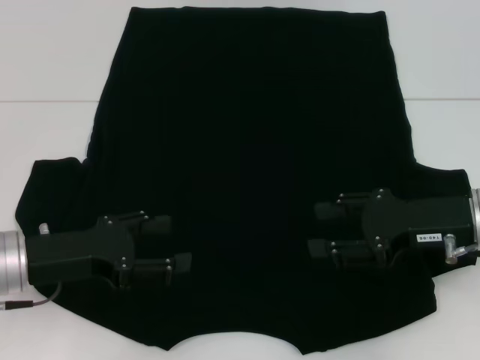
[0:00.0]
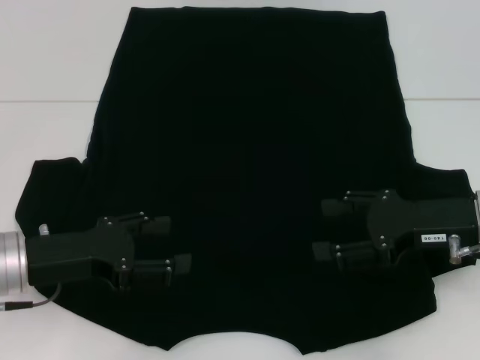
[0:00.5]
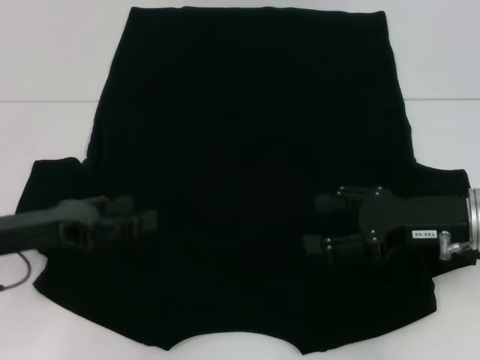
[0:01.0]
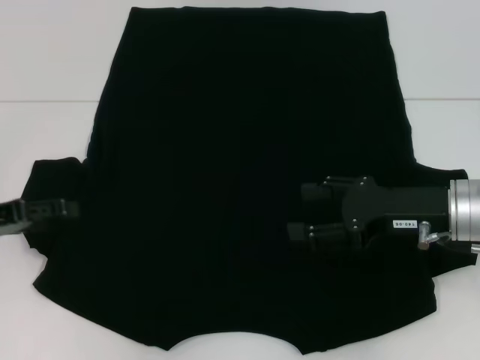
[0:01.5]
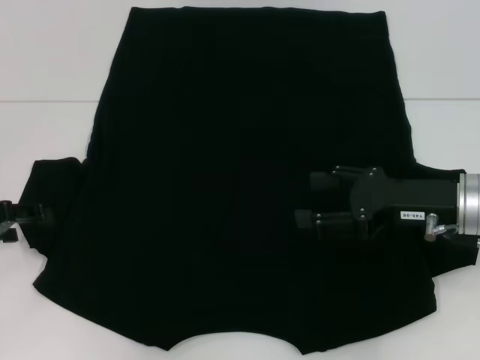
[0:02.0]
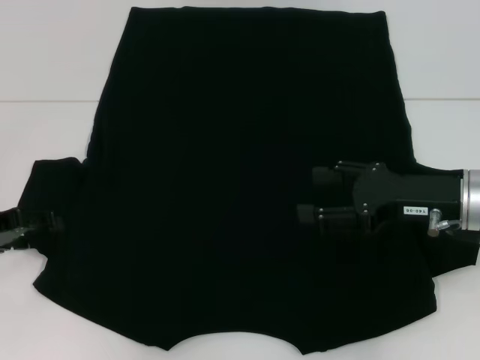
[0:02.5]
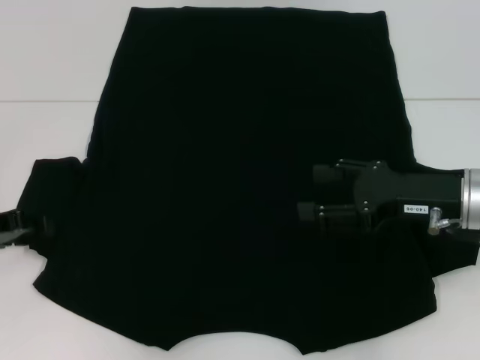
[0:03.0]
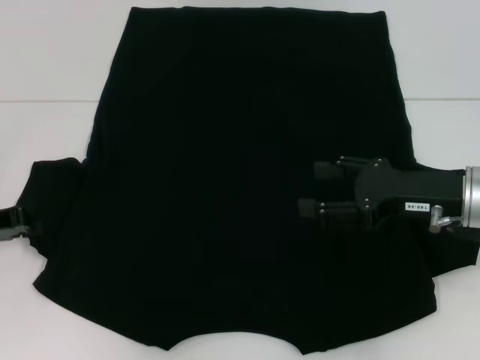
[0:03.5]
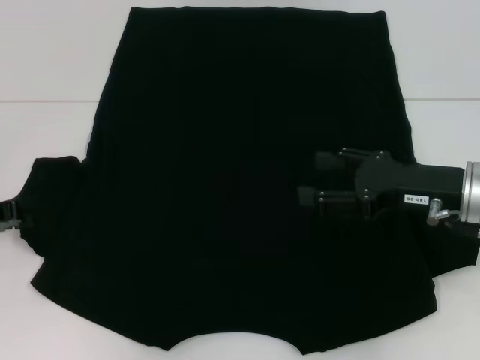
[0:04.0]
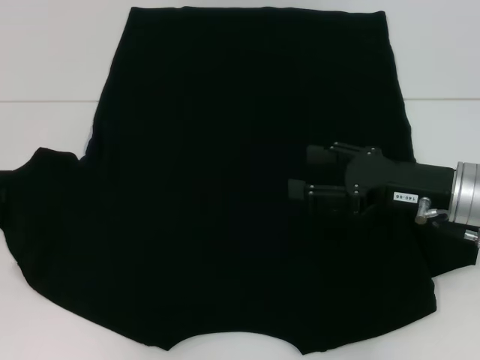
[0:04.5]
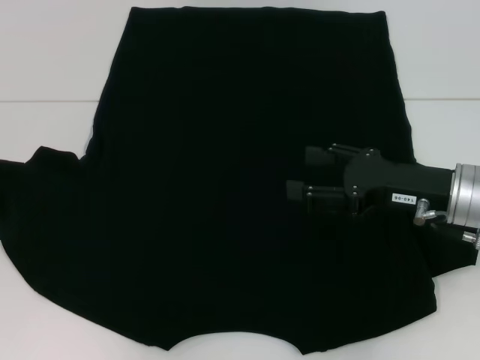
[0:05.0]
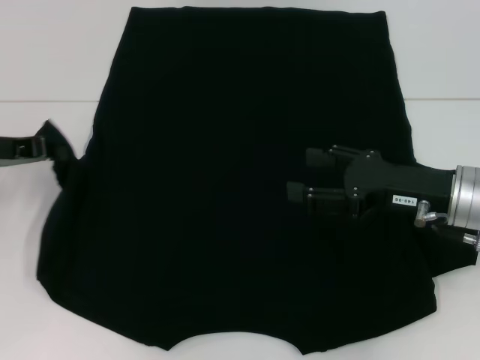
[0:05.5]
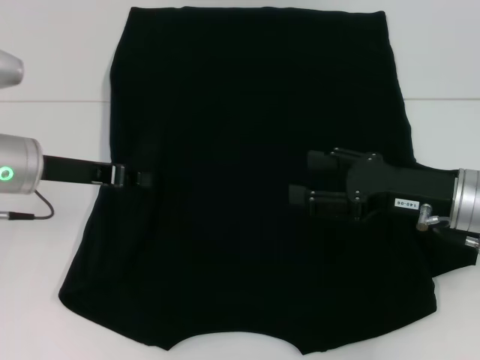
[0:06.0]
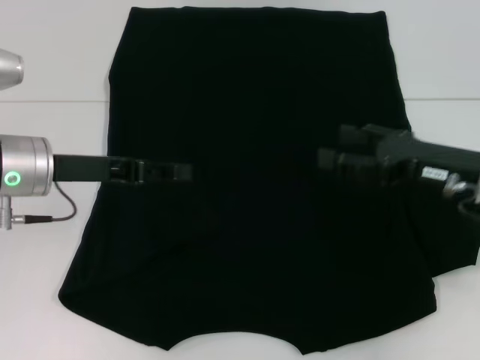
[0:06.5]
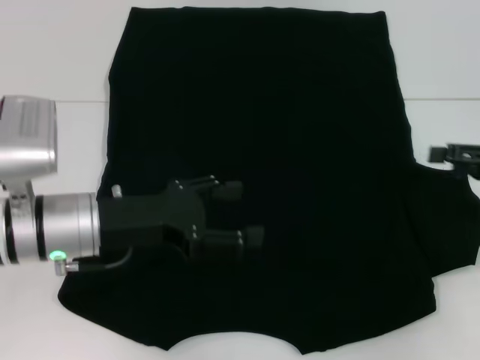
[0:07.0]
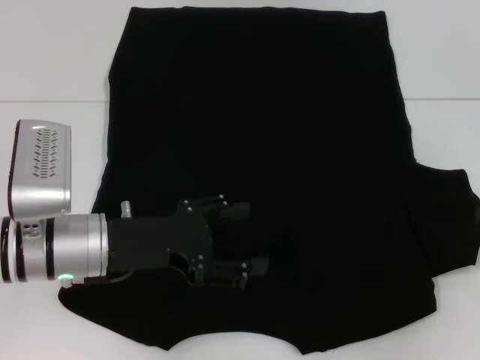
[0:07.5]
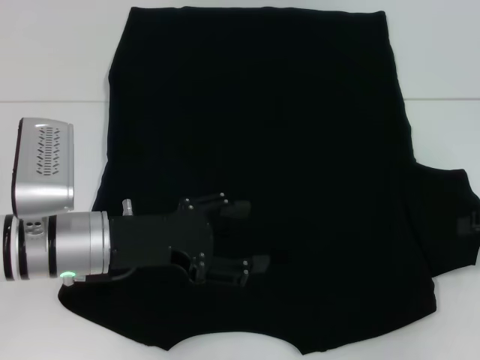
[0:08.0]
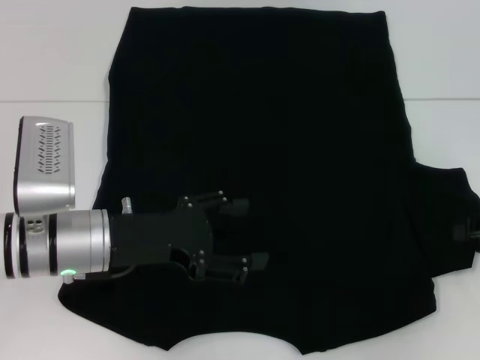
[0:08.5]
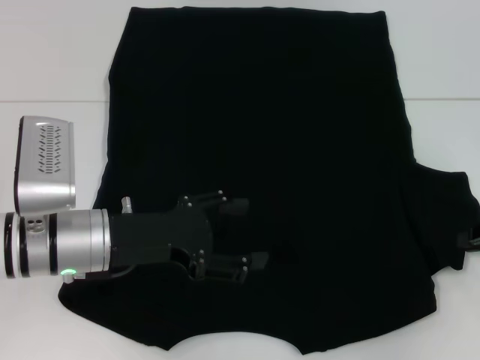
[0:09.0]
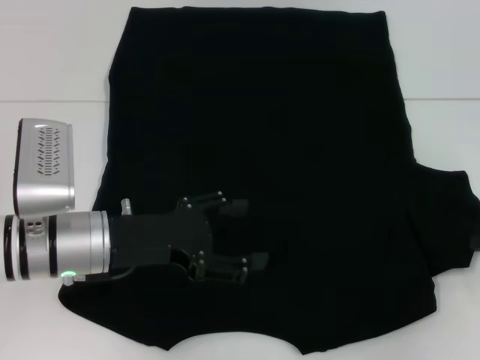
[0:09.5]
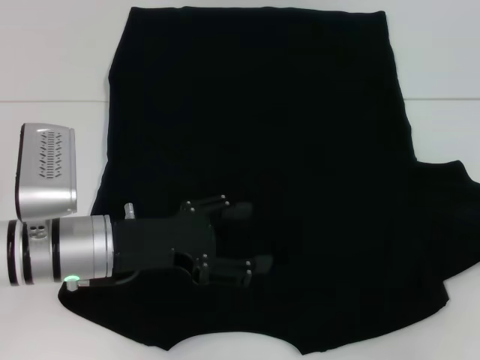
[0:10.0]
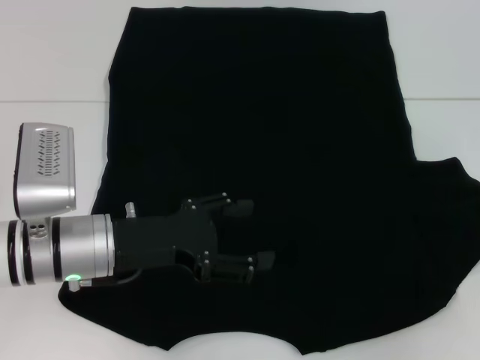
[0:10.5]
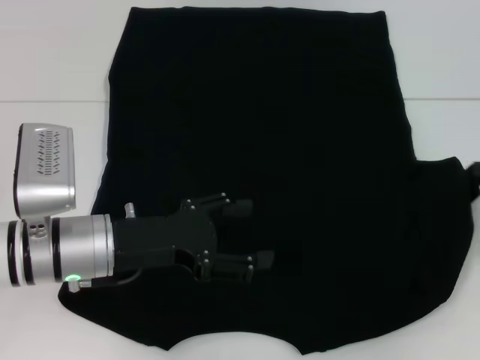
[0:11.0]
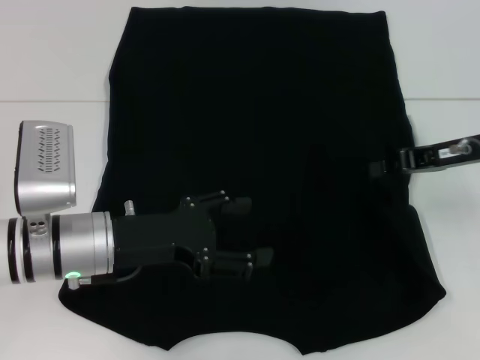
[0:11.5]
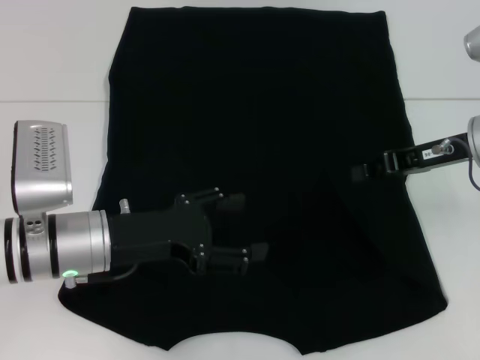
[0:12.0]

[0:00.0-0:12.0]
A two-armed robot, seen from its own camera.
Step, 0:00.0 to 0:06.0: Fold the bottom left sleeve with your left hand.
Step, 0:06.5 to 0:12.0: Fold the bottom right sleeve with your right hand.
0:00.0 to 0:02.0: The left gripper travels to the left by about 10 cm.
0:02.0 to 0:04.0: The left gripper closes its fingers.
0:04.0 to 0:06.0: The left gripper travels to the right by approximately 10 cm.
0:06.0 to 0:08.0: The left gripper shifts about 10 cm to the right and backward, and opens up; the right gripper moves to the right, about 15 cm.
0:08.0 to 0:10.0: The right gripper closes up.
0:10.0 to 0:12.0: The right gripper travels to the left and forward by approximately 15 cm.

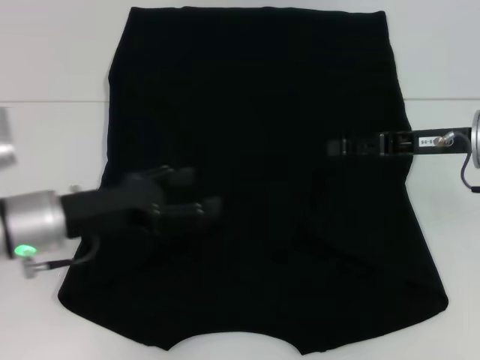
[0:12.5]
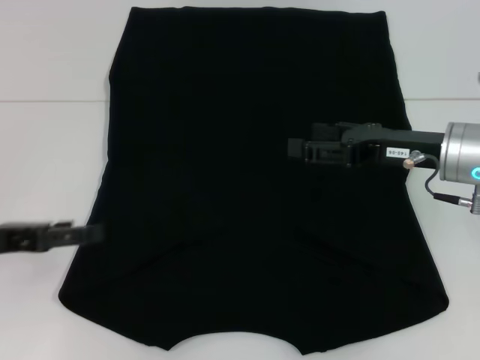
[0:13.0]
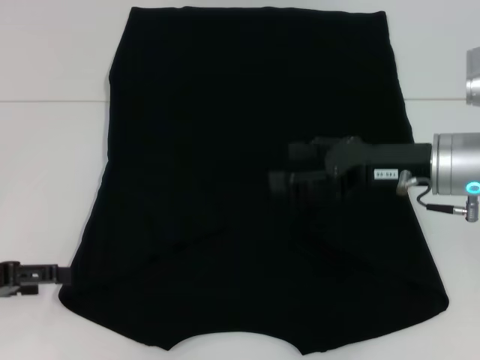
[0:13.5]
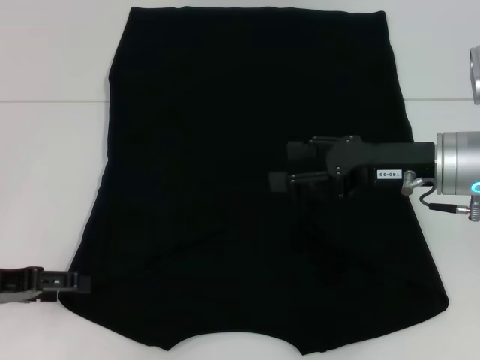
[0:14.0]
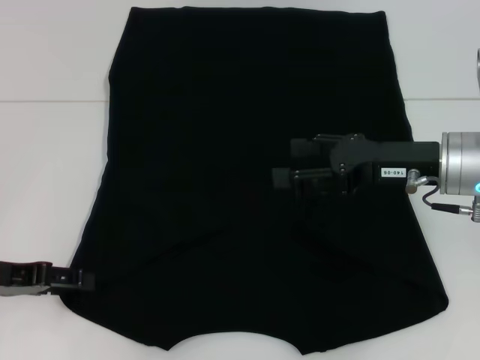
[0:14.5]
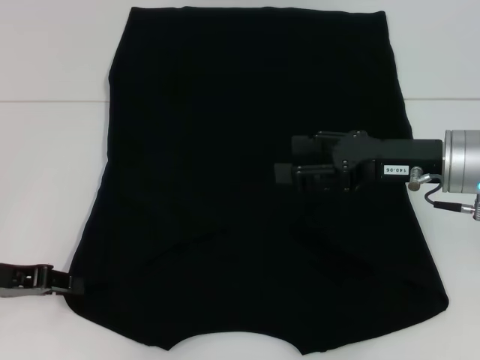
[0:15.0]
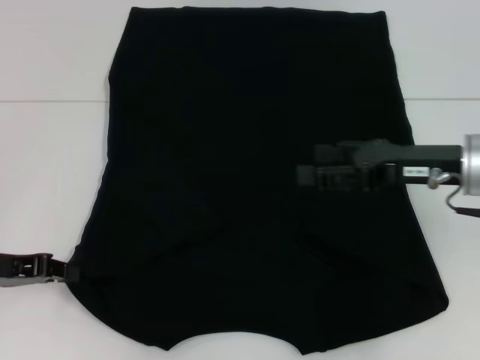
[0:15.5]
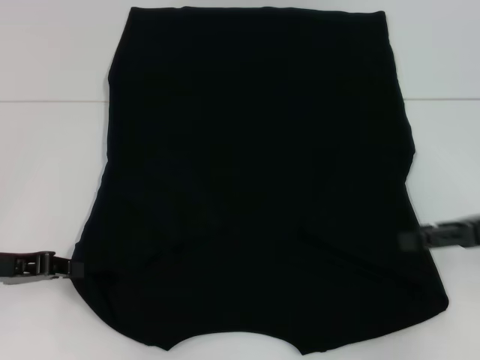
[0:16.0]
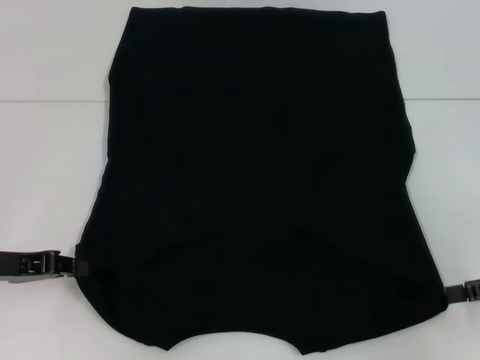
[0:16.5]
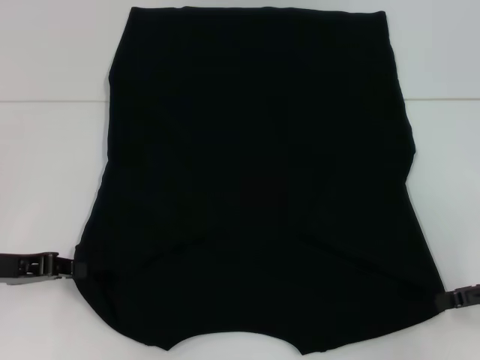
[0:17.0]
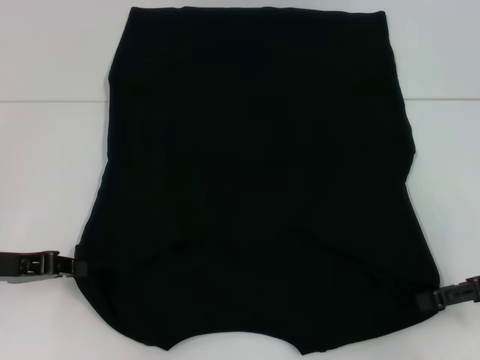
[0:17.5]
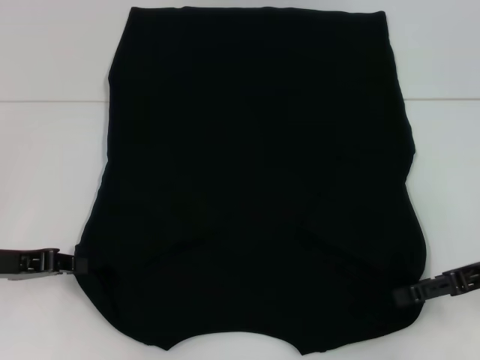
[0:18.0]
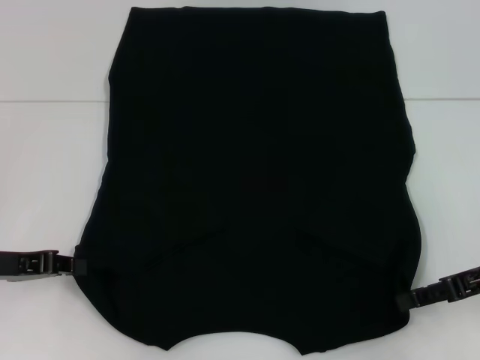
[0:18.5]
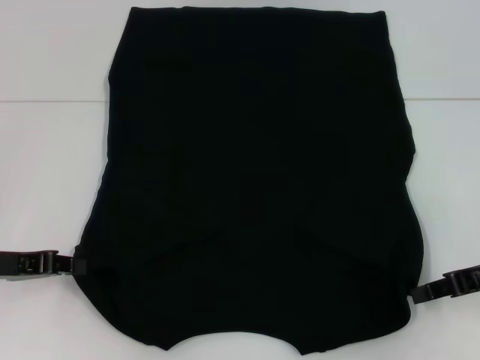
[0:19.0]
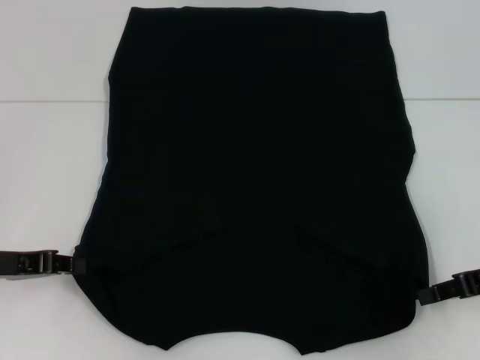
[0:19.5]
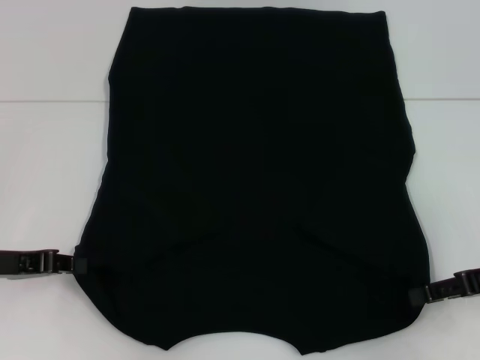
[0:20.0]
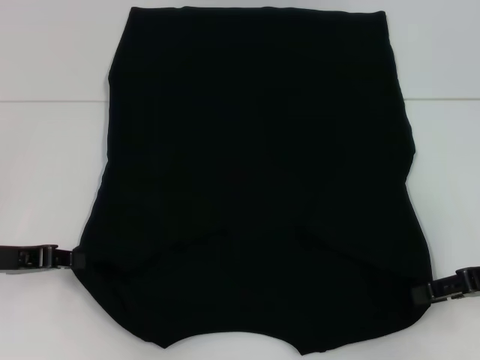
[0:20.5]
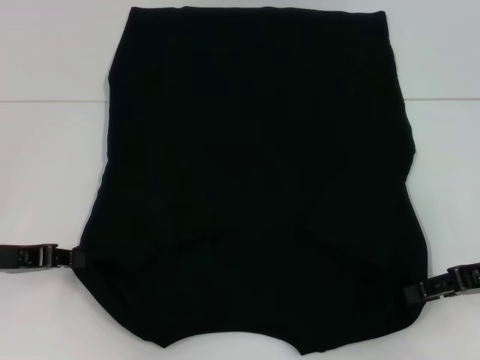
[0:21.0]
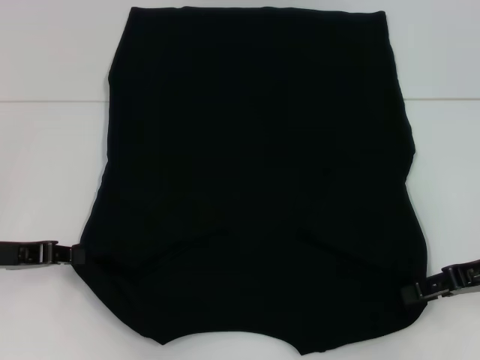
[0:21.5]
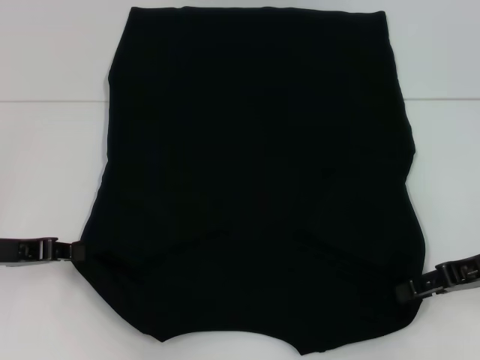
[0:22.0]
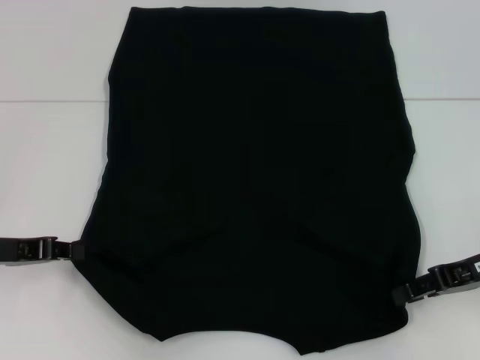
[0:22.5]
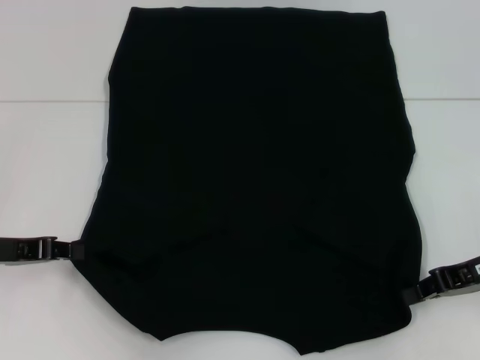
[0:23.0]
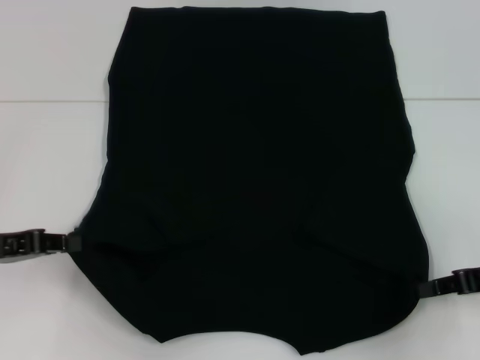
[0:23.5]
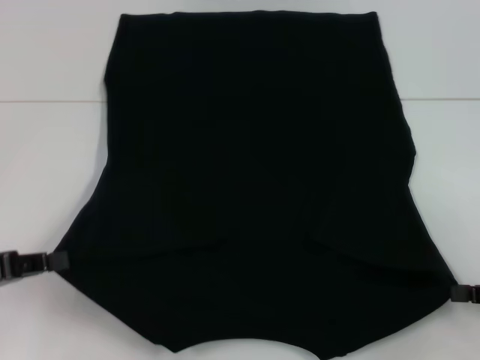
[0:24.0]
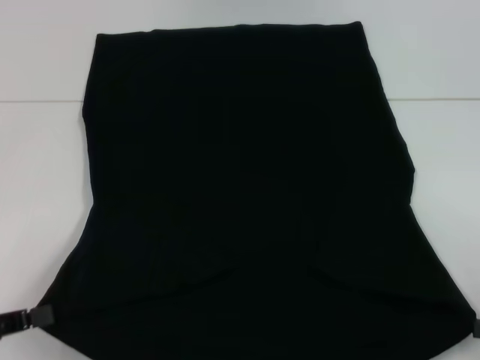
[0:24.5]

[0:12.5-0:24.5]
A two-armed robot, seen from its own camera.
Step, 0:12.5 to 0:15.5: Grab the bottom left corner with your left hand.
Step, 0:16.0 to 0:23.0: Grab the bottom right corner with your right hand.
0:12.5 to 0:14.5: The right gripper ends up roughly 5 cm from where it was, and opens its fingers, while the left gripper heads to the left, covering approximately 10 cm.
0:14.5 to 0:16.5: The left gripper closes, while the right gripper goes about 15 cm to the right and backward.
0:16.5 to 0:18.5: The right gripper goes approximately 5 cm to the left.
0:18.5 to 0:20.5: The right gripper closes, then reopens.
0:20.5 to 0:22.5: The grippers make only small movements.
0:22.5 to 0:24.5: The right gripper is displaced backward and to the right by about 15 cm, and closes its fingers, while the left gripper shifts roughly 10 cm backward.

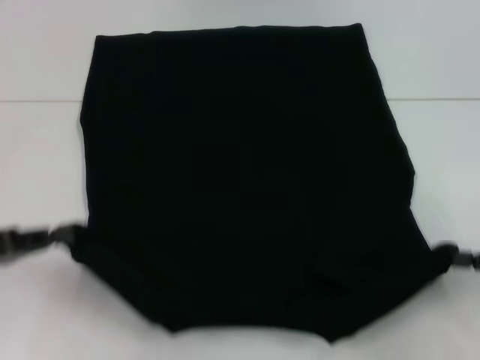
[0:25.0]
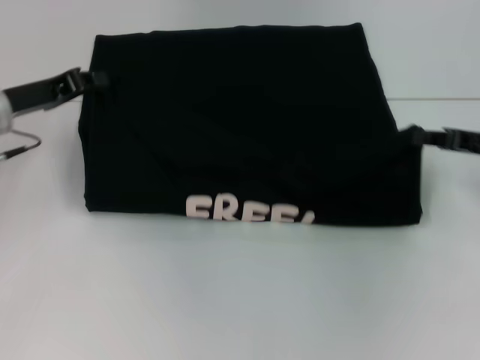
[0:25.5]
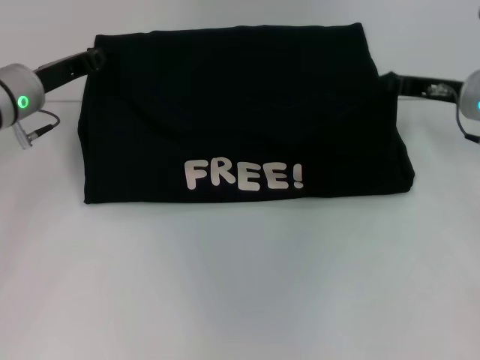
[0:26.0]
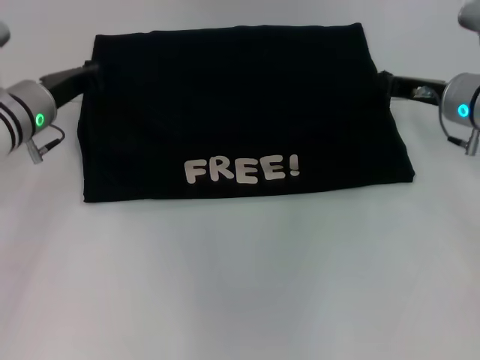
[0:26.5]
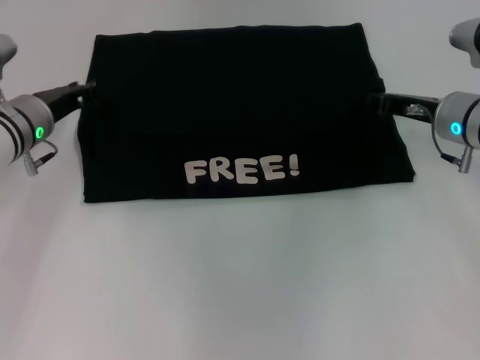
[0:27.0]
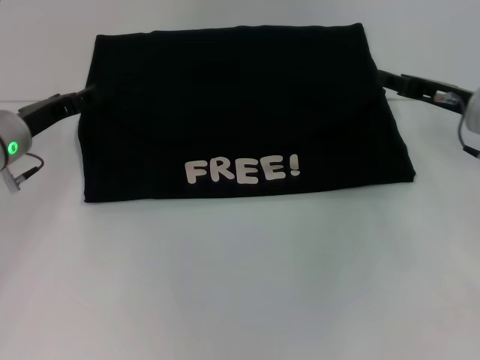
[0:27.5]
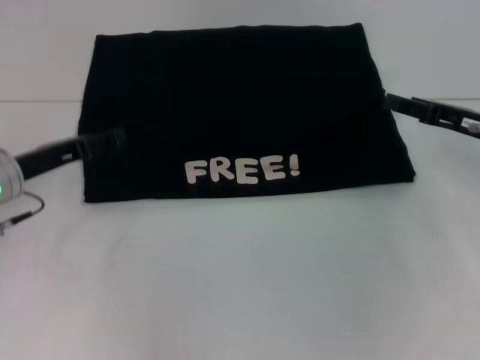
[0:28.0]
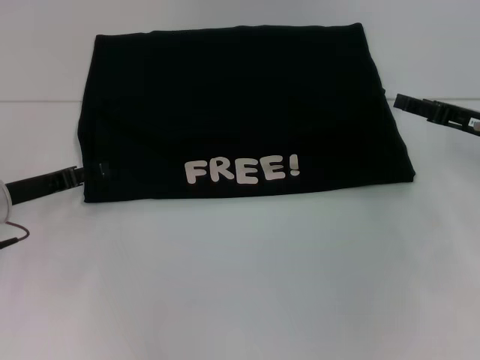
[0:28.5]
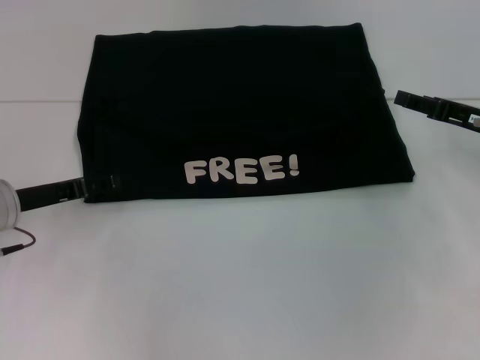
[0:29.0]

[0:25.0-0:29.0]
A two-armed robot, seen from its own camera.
Step, 0:25.0 to 0:27.0: Fold the clothes with your left hand.
Step, 0:25.0 to 0:27.0: Fold the clothes with your right hand.
0:25.0 to 0:27.0: The left gripper moves forward and to the right, approximately 20 cm; the right gripper moves forward and to the left, about 20 cm.
0:27.0 to 0:29.0: The left gripper shifts roughly 10 cm backward, and opens up, while the right gripper goes some 5 cm to the right, and opens.
